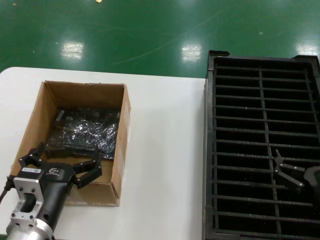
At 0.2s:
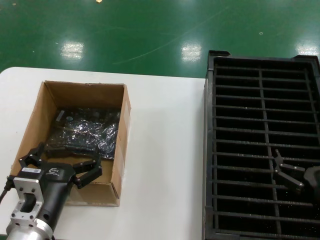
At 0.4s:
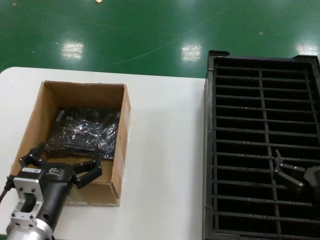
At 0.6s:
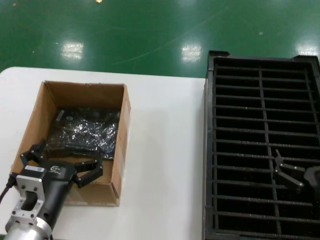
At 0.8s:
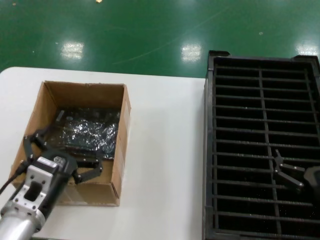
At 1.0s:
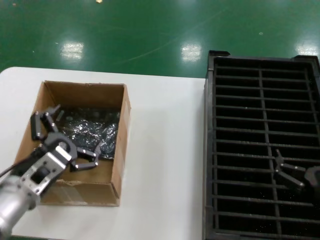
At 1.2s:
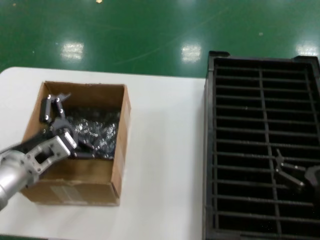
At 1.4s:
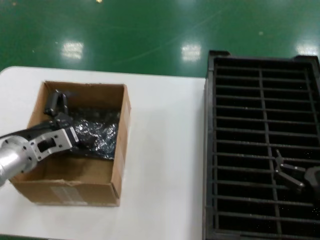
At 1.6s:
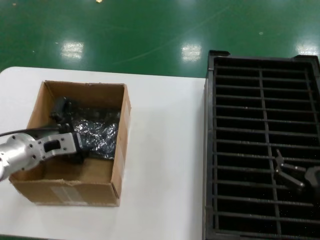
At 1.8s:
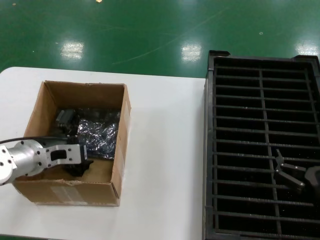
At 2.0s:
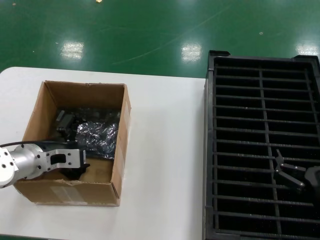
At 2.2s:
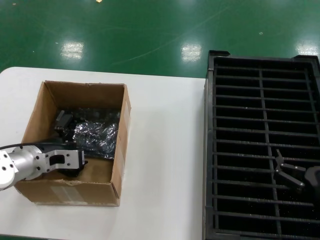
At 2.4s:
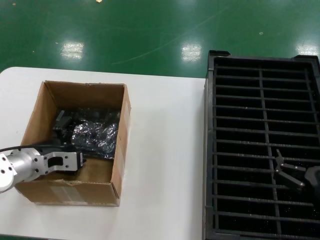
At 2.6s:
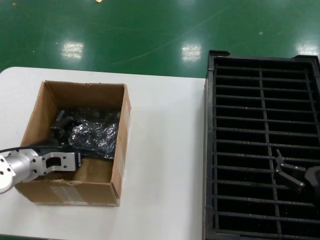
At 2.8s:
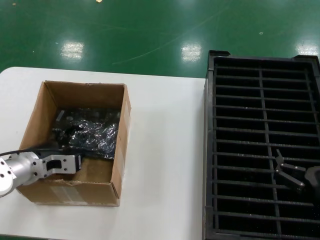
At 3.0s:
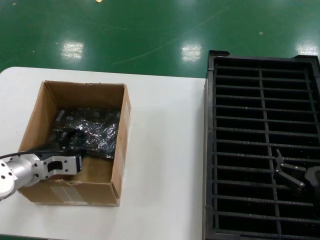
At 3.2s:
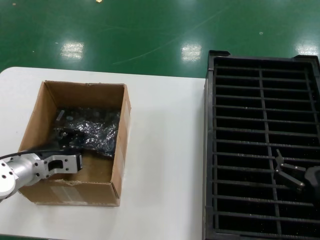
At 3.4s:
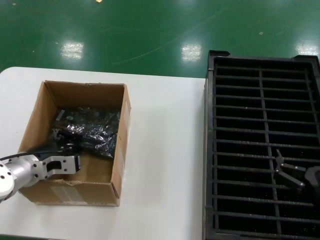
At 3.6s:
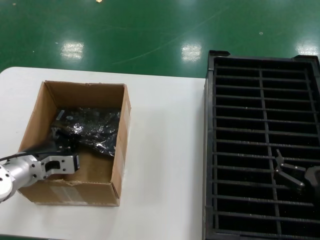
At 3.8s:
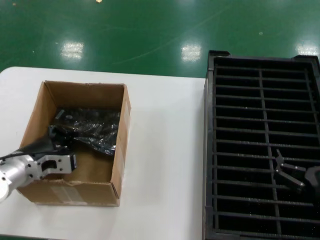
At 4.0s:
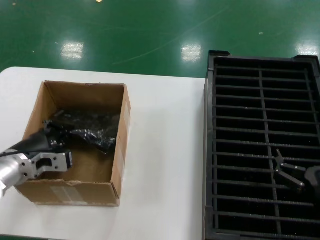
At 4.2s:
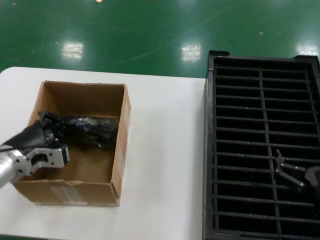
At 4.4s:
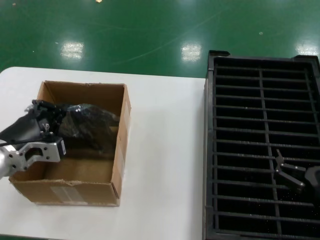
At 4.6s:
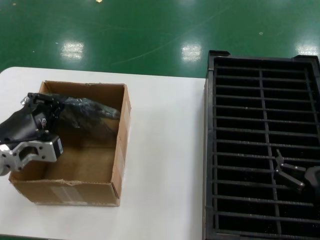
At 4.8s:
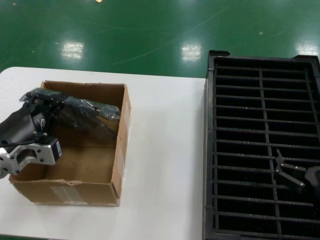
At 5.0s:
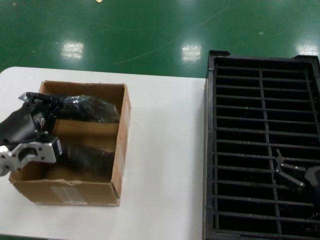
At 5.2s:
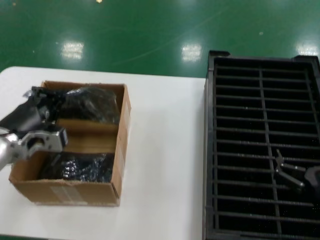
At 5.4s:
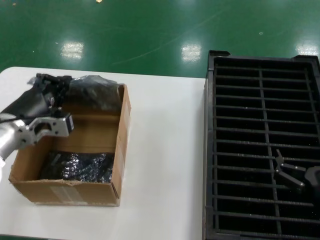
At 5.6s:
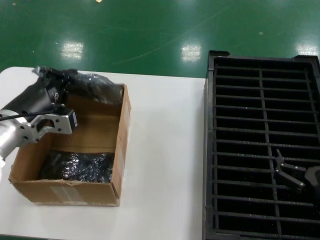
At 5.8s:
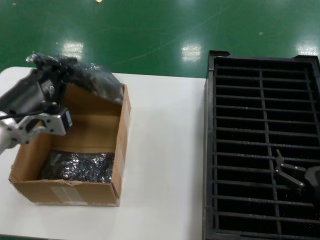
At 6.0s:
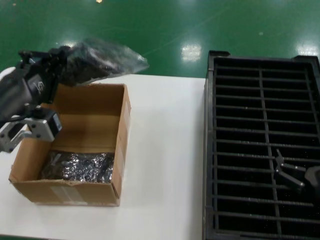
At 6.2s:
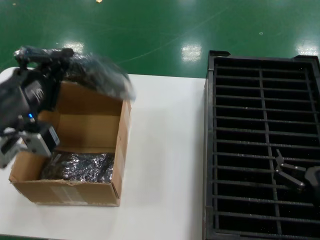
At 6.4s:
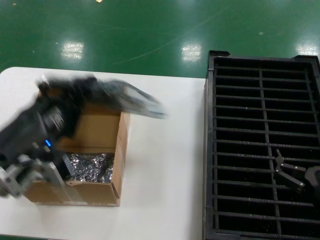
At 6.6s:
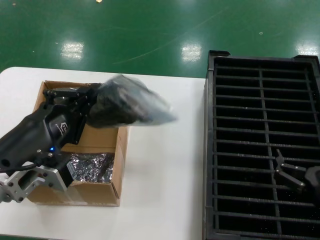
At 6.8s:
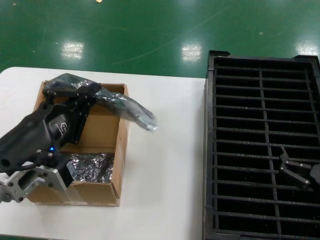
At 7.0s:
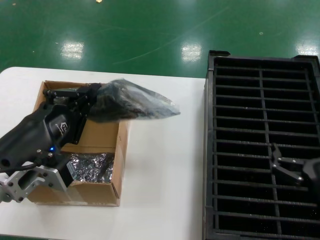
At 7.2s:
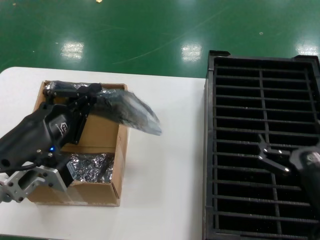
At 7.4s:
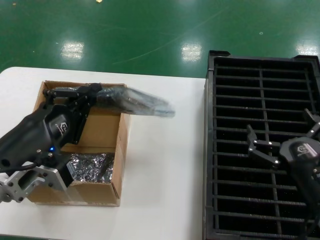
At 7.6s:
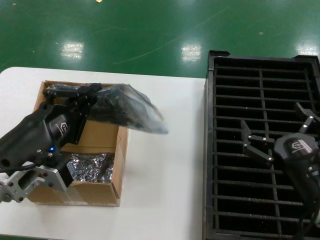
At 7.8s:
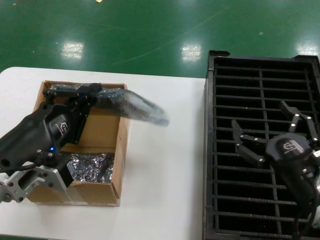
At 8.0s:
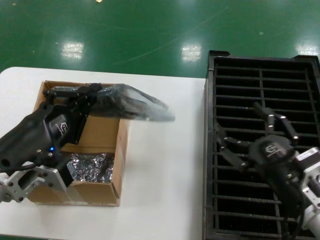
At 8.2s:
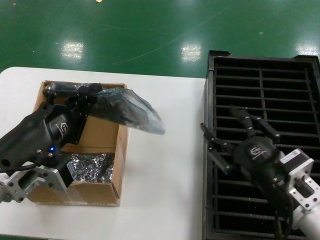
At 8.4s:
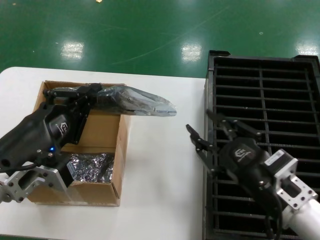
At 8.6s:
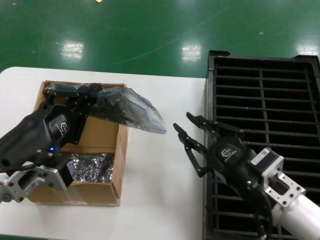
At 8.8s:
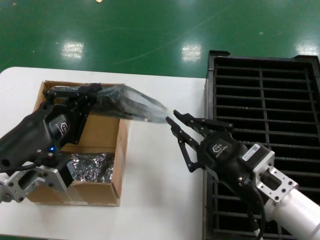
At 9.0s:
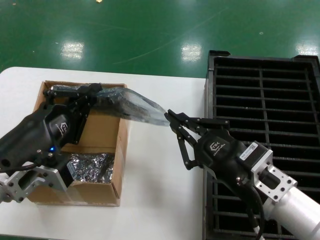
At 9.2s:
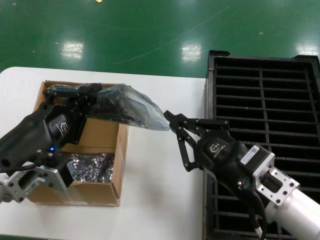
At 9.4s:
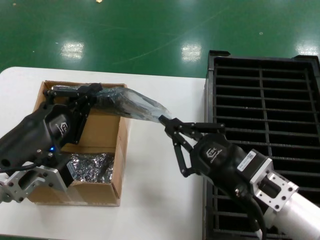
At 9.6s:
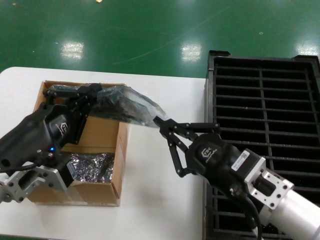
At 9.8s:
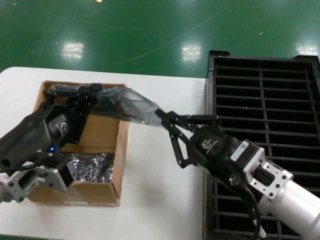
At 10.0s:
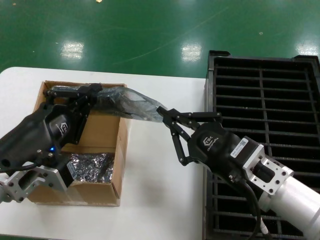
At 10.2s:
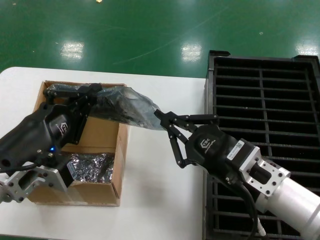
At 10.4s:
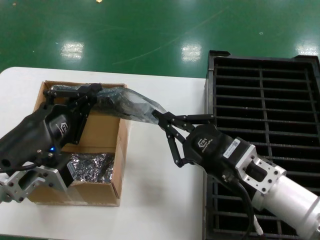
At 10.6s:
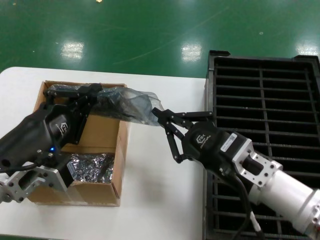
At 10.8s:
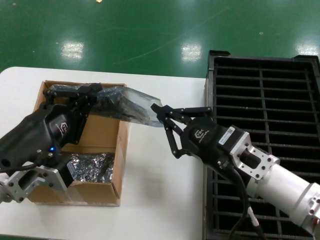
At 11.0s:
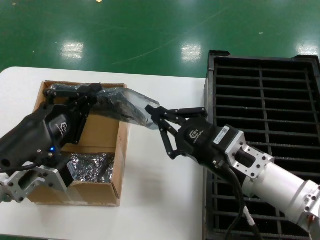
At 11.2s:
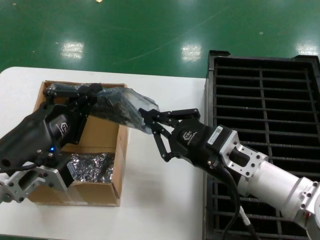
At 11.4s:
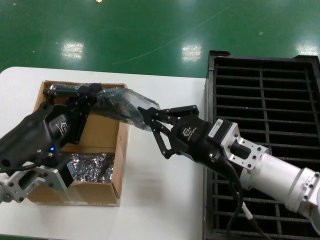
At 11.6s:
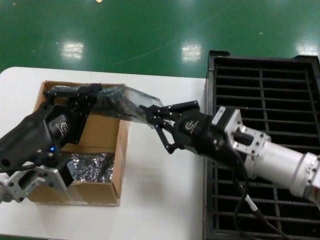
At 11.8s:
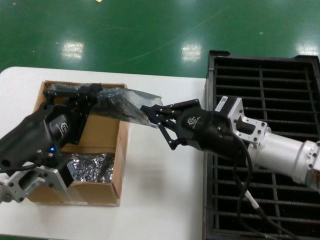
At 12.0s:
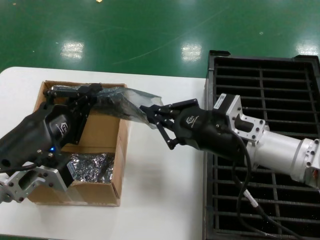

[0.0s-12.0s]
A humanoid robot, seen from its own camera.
Task of the whole recording: take out graphics card from box remove packaging put into black container.
Step, 0.0s to 3.2s: Grasp the bag.
Step, 3.4s to 6.6s: Lift the bag.
0.0s to 1.6s: The left hand moves forward, to the left and upward, about 20 cm.
1.6s to 3.0s: The hands stay close to where they were, moving slightly.
3.0s to 4.4s: The left hand is displaced backward by about 5 cm.
4.4s to 6.0s: The left hand heads upward and backward, covering about 10 cm.
6.0s to 7.6s: The left hand moves backward, some 5 cm; the right hand ends up roughly 5 cm from where it was.
7.6s to 9.0s: The right hand travels to the left by approximately 5 cm.
9.0s to 10.4s: The hands stay close to where they were, moving slightly.
10.4s to 12.0s: The right hand is displaced forward by approximately 10 cm.

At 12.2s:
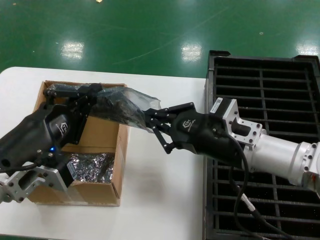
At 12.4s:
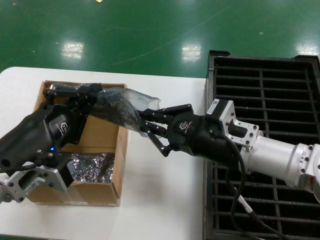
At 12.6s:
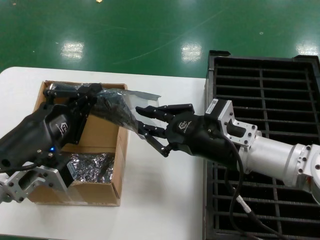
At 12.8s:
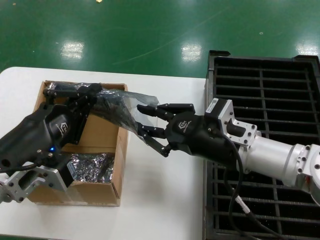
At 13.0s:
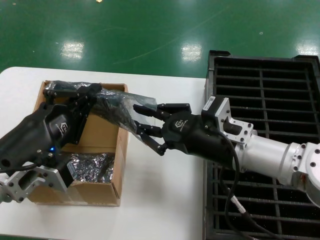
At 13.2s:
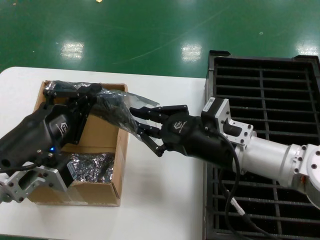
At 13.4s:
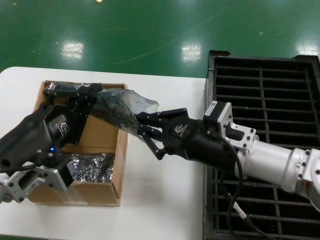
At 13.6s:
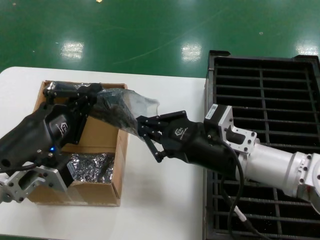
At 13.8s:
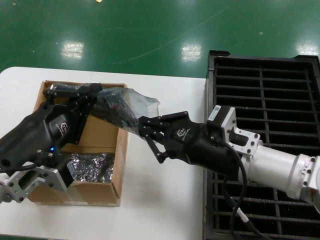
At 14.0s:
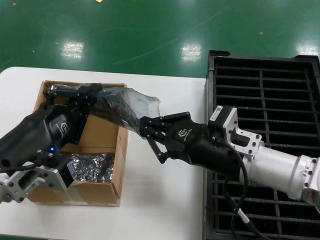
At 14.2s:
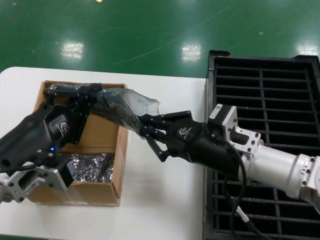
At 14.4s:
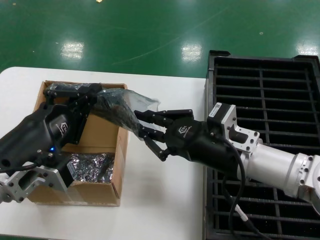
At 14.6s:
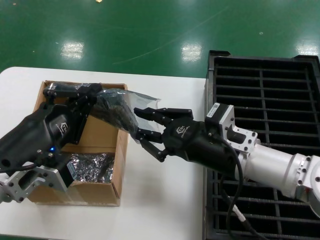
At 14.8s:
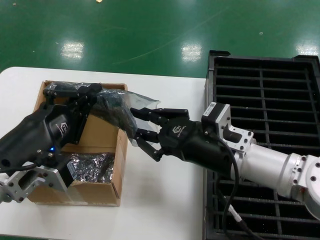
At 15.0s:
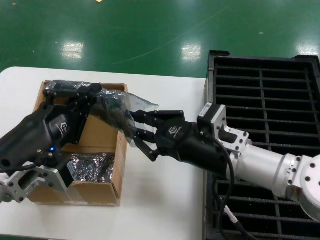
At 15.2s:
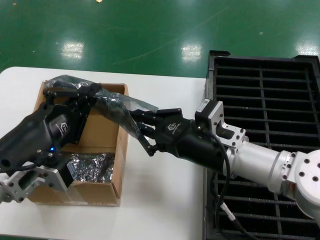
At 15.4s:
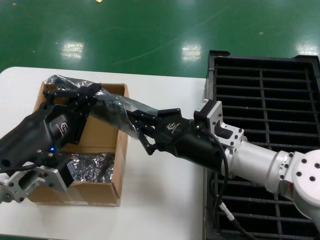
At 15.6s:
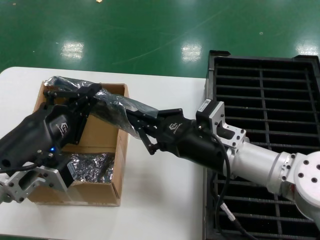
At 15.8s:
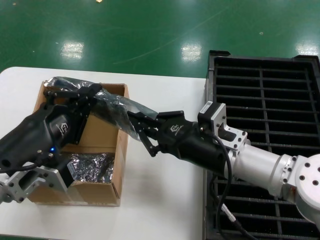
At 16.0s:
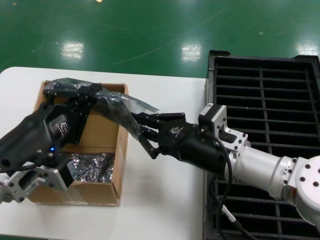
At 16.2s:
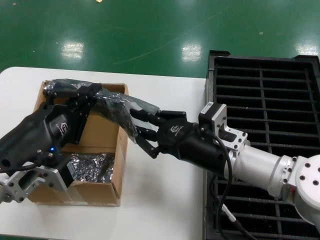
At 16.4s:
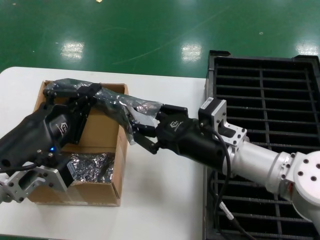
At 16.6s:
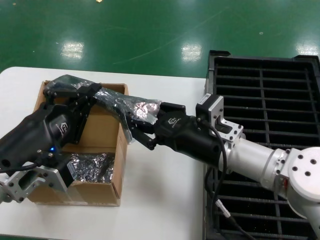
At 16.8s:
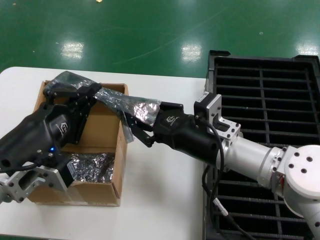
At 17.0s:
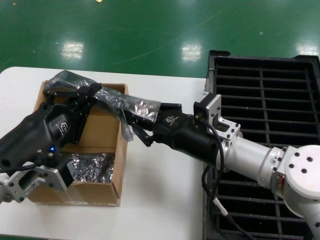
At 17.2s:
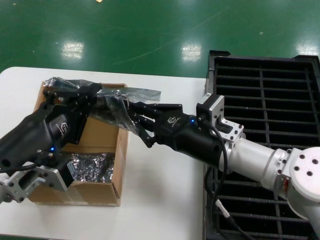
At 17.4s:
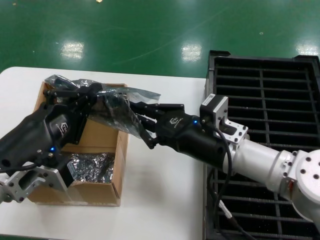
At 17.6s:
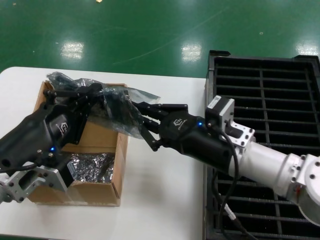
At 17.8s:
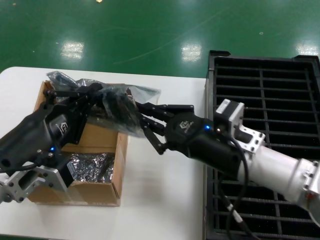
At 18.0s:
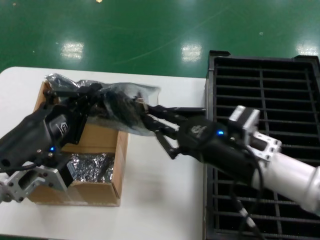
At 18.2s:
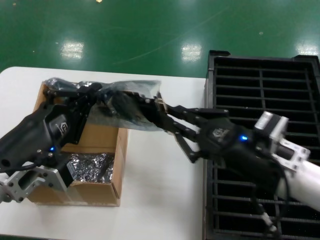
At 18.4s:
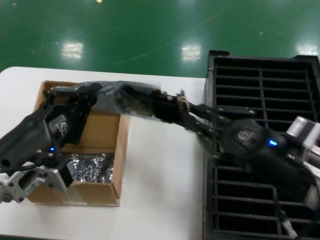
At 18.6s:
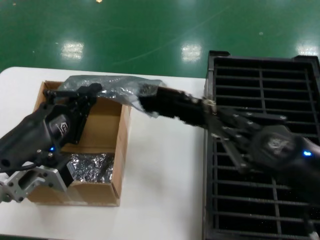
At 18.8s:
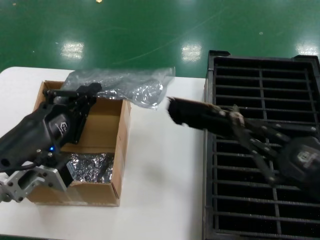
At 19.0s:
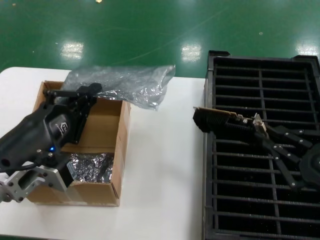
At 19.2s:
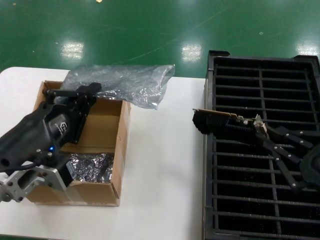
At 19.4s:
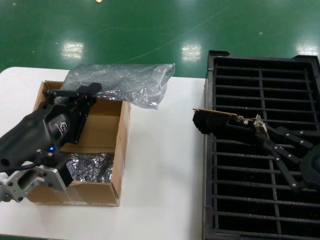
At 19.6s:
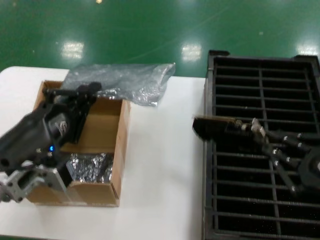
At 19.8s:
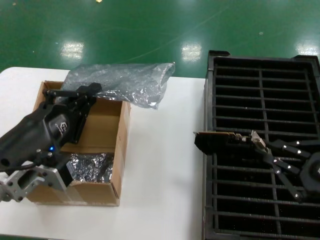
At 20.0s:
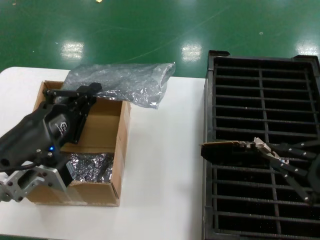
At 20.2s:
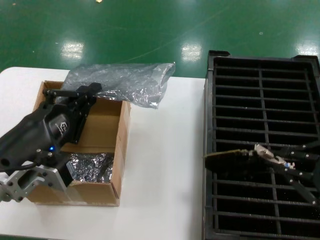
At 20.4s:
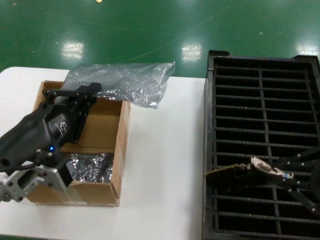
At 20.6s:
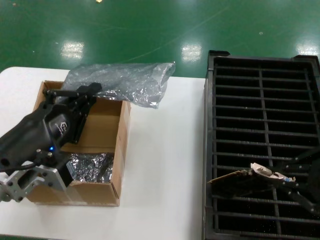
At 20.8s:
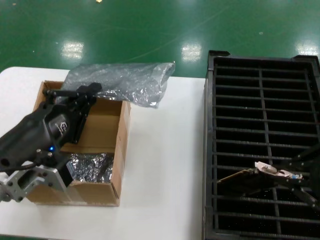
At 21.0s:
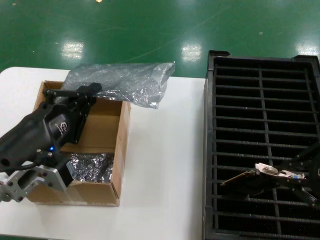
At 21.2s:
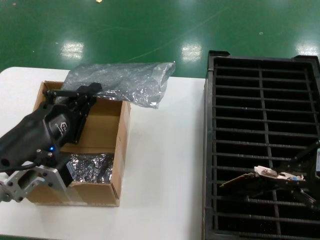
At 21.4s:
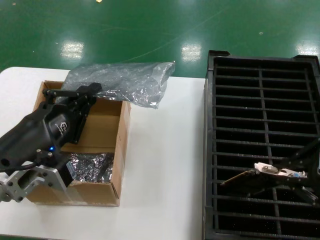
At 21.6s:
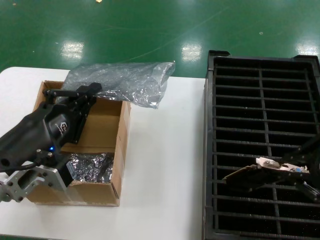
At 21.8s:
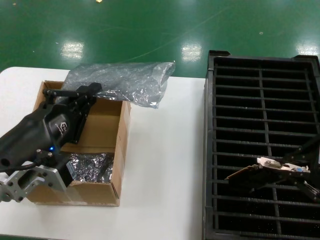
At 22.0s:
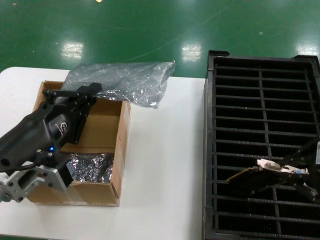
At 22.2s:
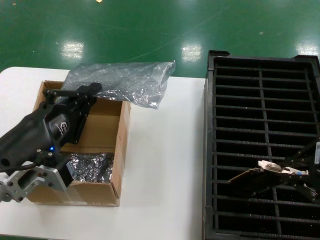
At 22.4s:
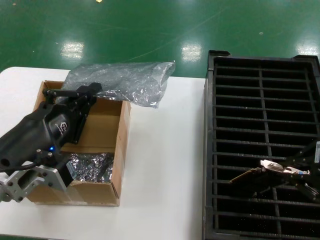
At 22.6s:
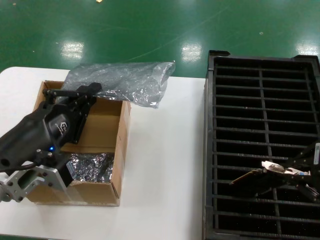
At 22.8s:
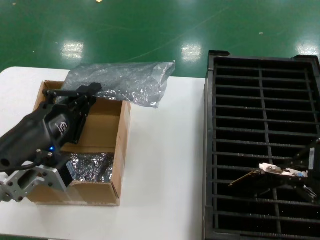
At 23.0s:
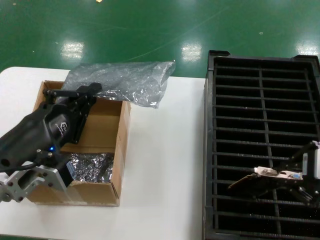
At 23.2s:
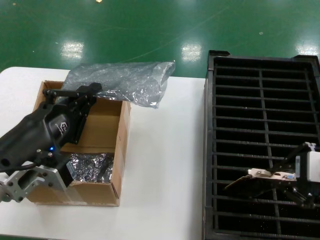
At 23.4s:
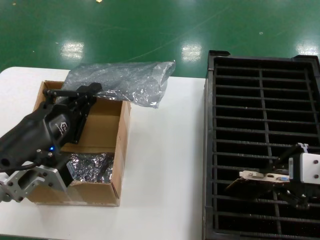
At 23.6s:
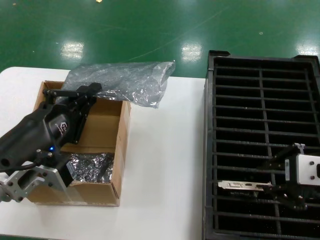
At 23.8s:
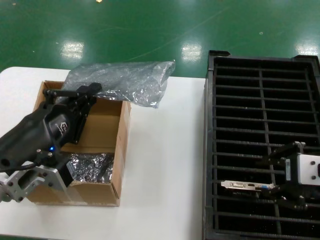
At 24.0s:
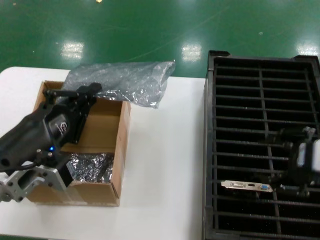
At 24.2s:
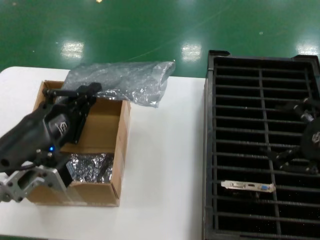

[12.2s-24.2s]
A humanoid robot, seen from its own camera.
Task of the whole recording: take out graphics card from box remove packaging put into black container.
Step, 12.2s to 18.8s: Take out the hard disk of the bag.
Step, 19.0s to 24.2s: Place the hard disk in the hard disk enclosure.
12.2s to 16.6s: There are only small adjustments of the hands.
16.6s to 18.2s: The right hand shifts about 10 cm to the right and backward.
18.2s to 19.8s: The right hand is displaced to the right and backward by roughly 15 cm.
19.8s to 21.2s: The right hand heads upward, covering approximately 10 cm.
21.2s to 24.2s: The hands stay close to where they were, moving slightly.
